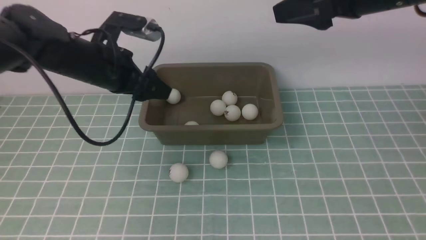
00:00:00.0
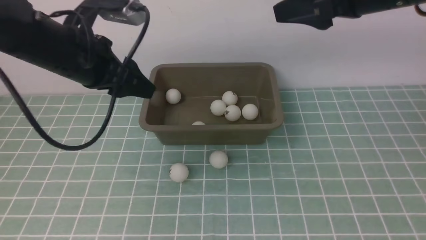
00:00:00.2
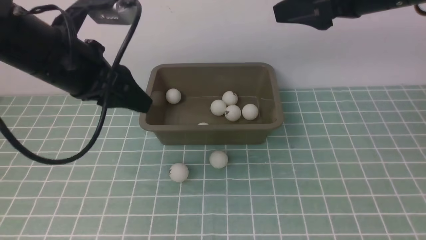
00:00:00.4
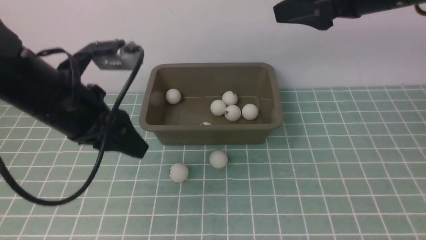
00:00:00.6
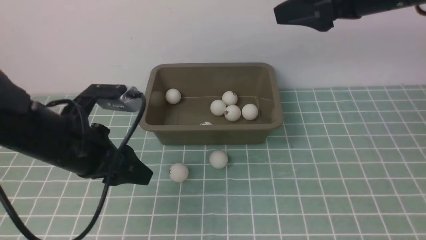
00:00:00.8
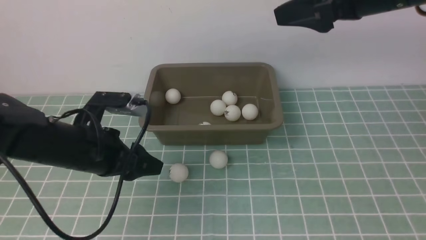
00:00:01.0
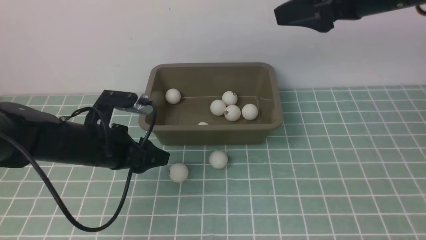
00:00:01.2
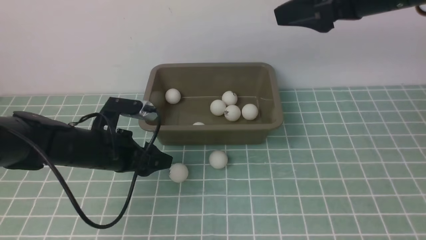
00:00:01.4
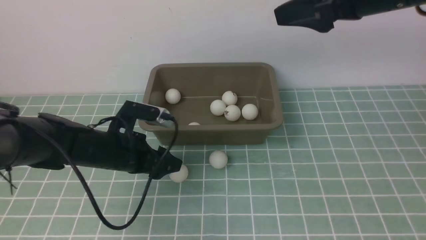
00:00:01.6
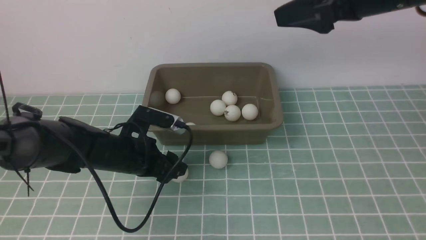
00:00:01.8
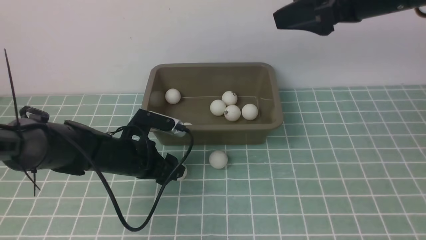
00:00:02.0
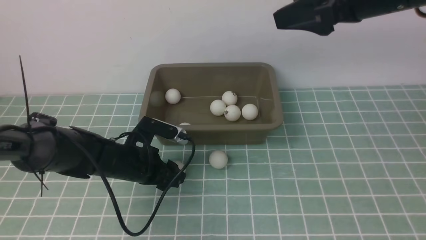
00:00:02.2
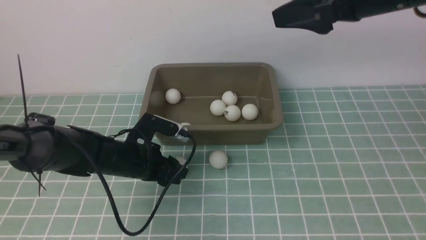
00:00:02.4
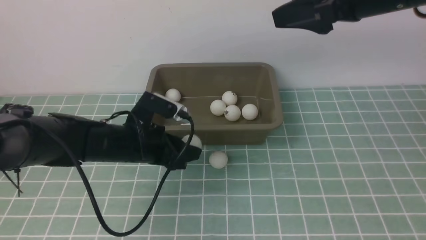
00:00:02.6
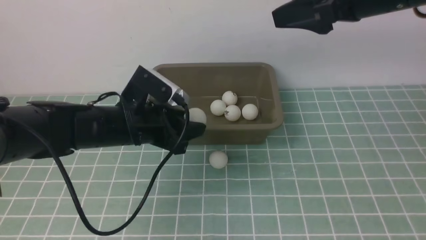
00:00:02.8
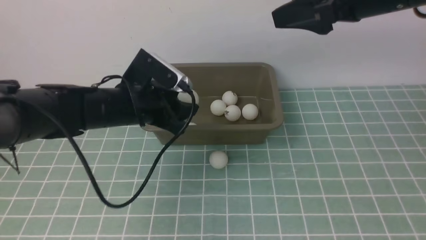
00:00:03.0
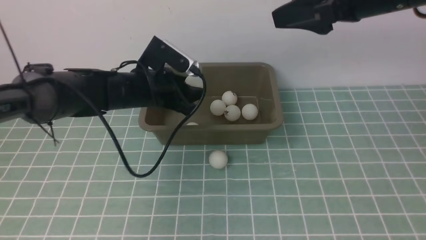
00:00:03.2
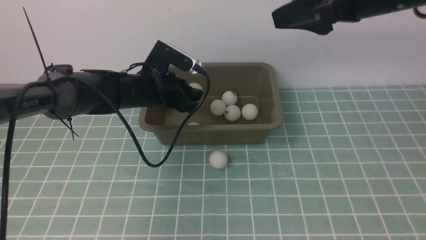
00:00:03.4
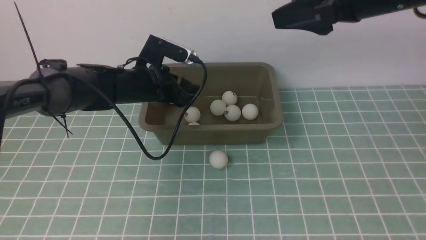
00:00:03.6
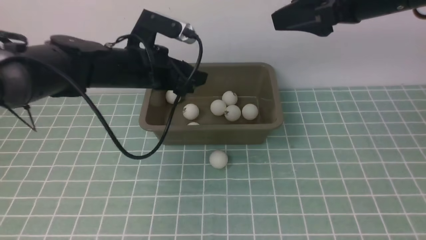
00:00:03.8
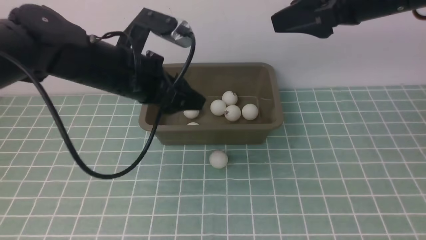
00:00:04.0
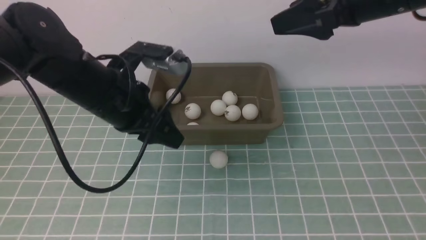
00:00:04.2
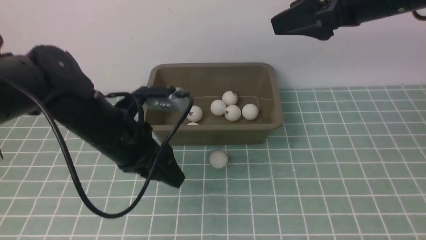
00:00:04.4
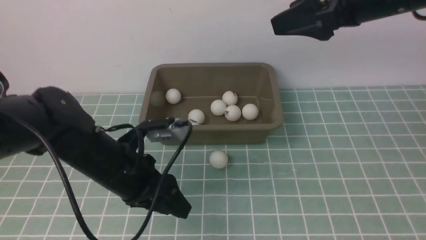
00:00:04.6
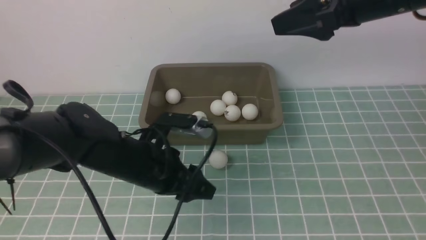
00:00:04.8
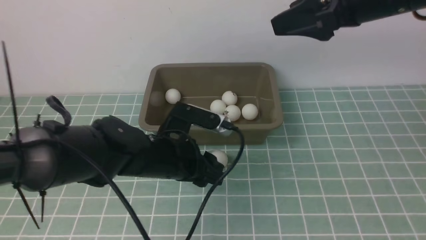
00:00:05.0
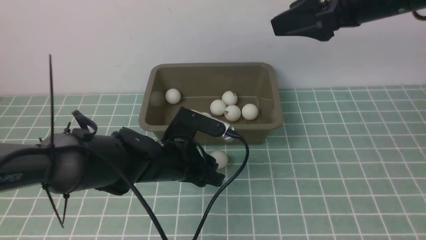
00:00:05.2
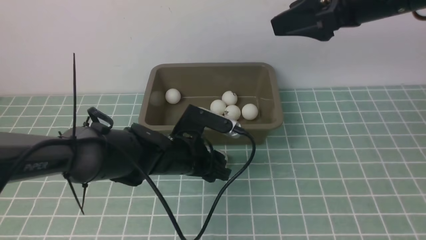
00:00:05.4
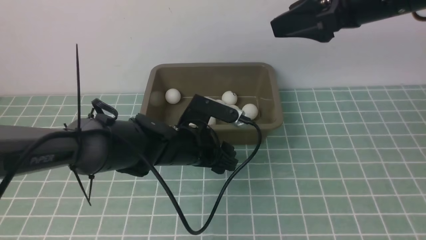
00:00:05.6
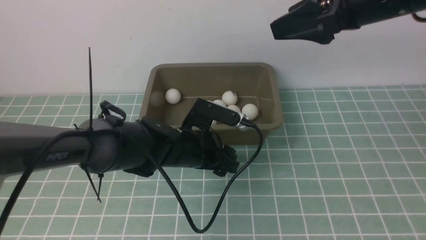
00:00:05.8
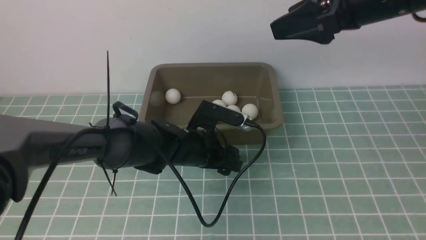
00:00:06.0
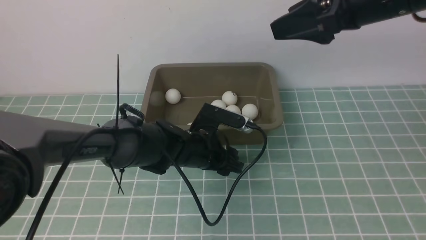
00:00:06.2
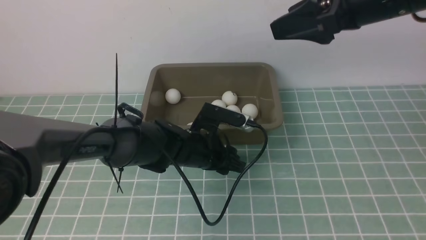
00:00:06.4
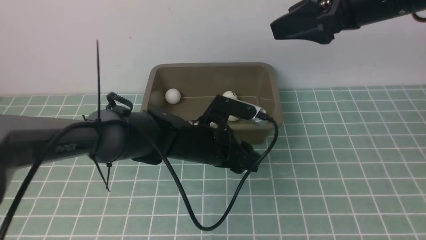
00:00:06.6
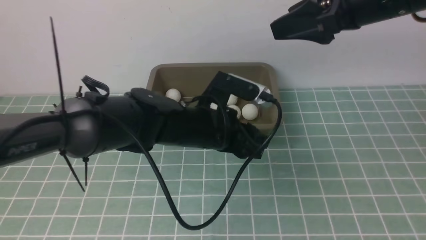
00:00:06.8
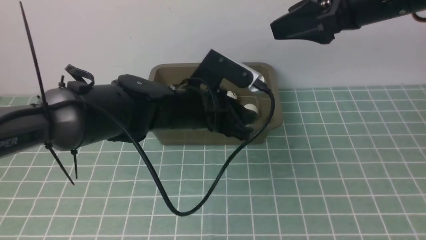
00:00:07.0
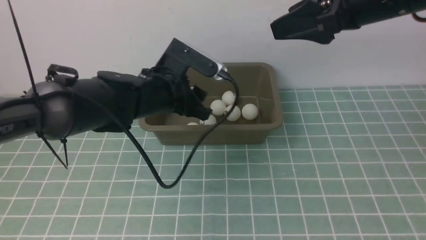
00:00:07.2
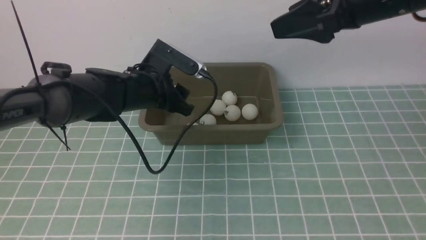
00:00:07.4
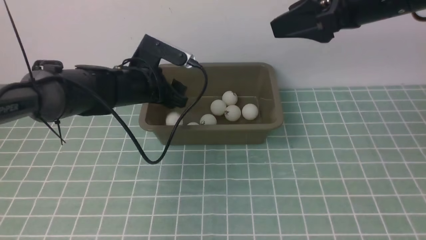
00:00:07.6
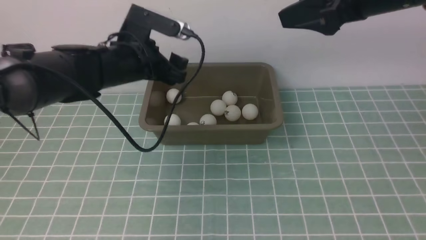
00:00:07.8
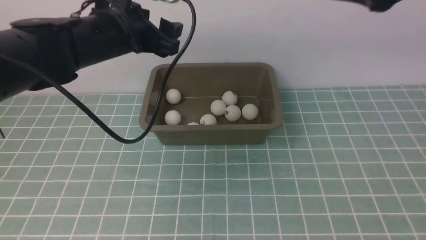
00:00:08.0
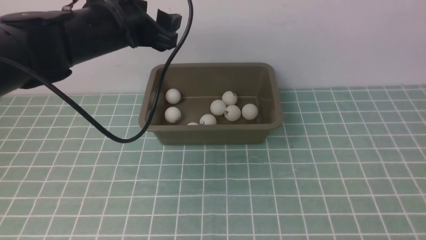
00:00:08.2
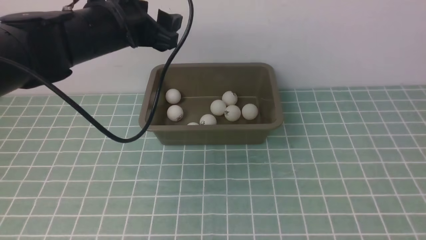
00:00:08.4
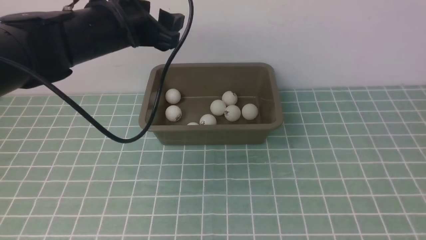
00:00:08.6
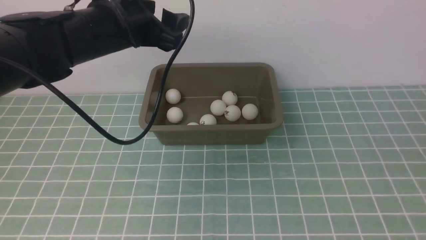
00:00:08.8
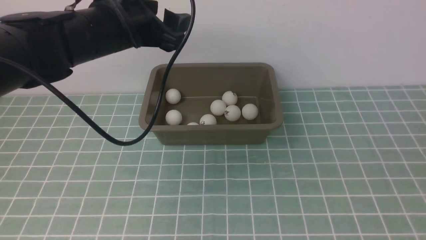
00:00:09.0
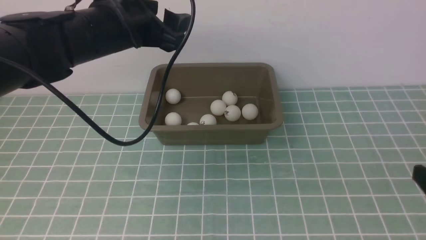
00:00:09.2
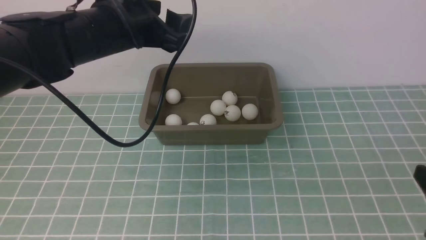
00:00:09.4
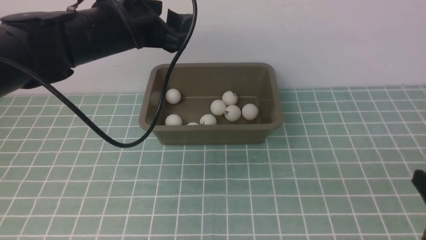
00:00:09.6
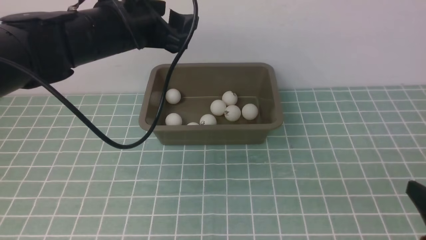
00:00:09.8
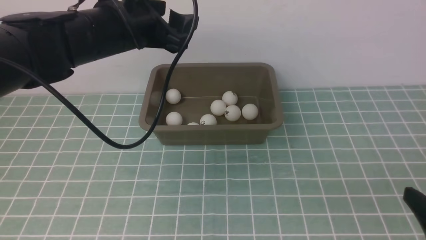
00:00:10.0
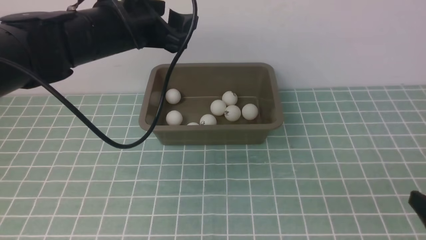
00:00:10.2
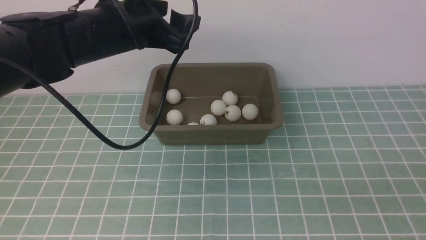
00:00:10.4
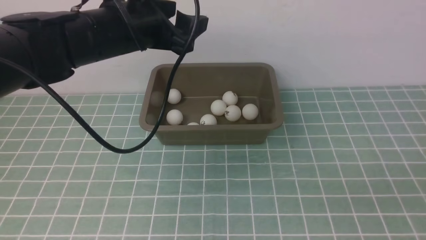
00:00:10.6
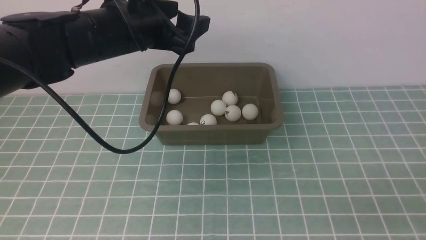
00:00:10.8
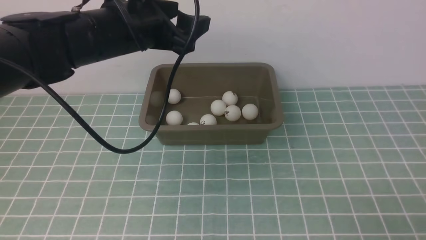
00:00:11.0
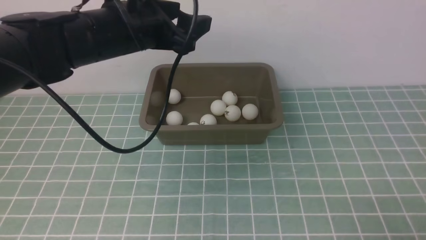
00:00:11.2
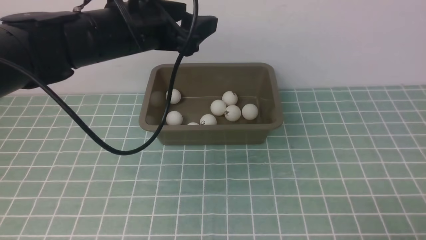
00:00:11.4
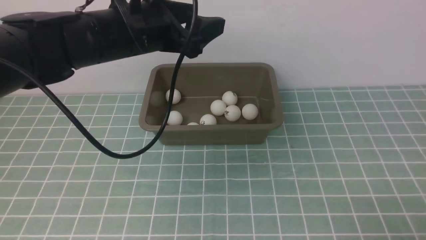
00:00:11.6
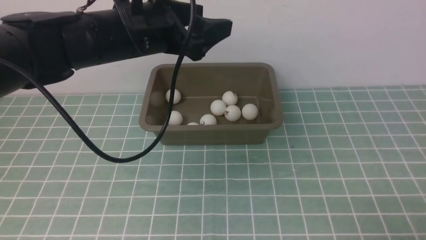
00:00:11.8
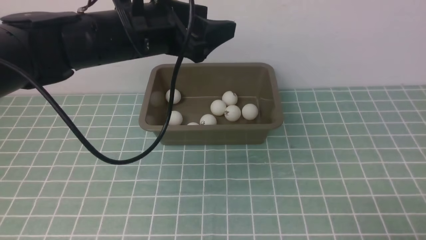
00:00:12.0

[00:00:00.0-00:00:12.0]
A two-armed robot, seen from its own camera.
Step, 00:00:00.0 to 00:00:02.4: use the left arm to clamp the table tennis ball closest to it.
Step, 00:00:02.8 to 00:00:03.6: use the left arm to put the table tennis ball into the box.
Step, 00:00:03.8 to 00:00:06.6: use the left arm to clamp the table tennis ball closest to it.
Step, 00:00:06.8 to 00:00:07.8: use the left arm to put the table tennis ball into the box.
00:00:00.0 to 00:00:01.6: The left gripper is displaced downward by approximately 20 cm.
00:00:01.6 to 00:00:03.0: The left gripper moves upward, roughly 5 cm.
00:00:03.0 to 00:00:04.4: The left gripper travels backward by some 10 cm.
00:00:04.4 to 00:00:06.0: The left gripper travels downward and to the right by roughly 15 cm.
00:00:06.0 to 00:00:07.6: The left gripper moves upward, to the left and forward, about 15 cm.
00:00:07.6 to 00:00:09.0: The right gripper is displaced backward, downward and to the right by some 25 cm. The left gripper travels upward by roughly 10 cm.
00:00:09.0 to 00:00:10.4: The right gripper heads downward, covering roughly 5 cm, and closes up.
00:00:10.4 to 00:00:12.0: The right gripper shifts about 5 cm downward.

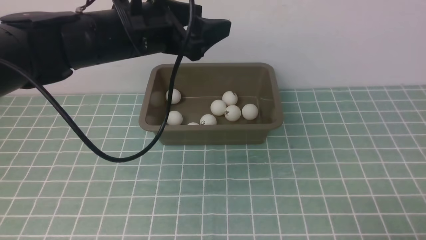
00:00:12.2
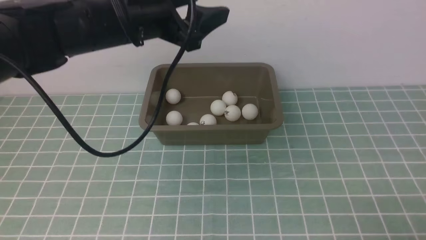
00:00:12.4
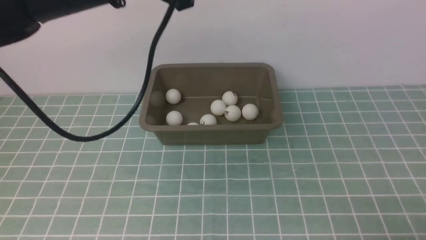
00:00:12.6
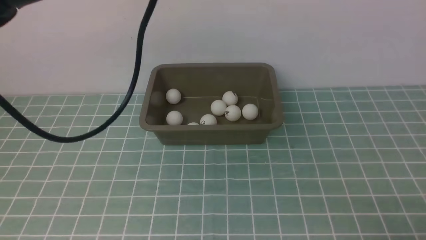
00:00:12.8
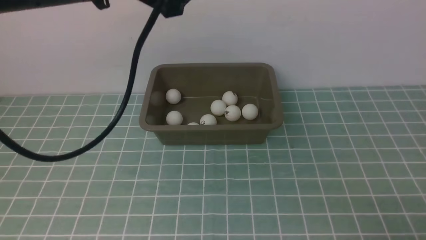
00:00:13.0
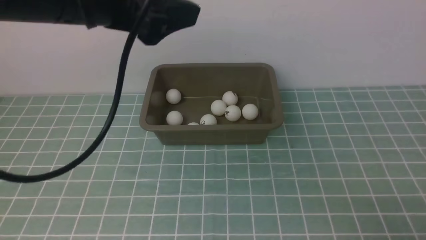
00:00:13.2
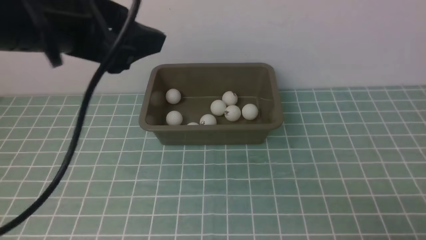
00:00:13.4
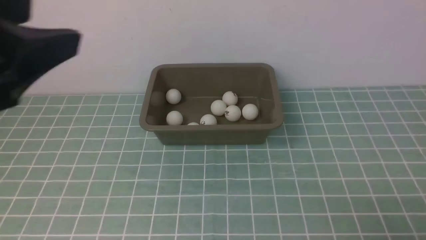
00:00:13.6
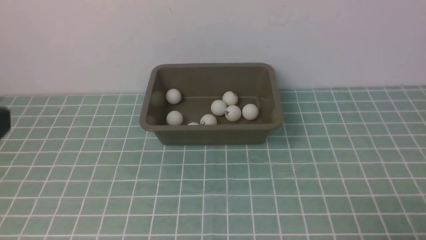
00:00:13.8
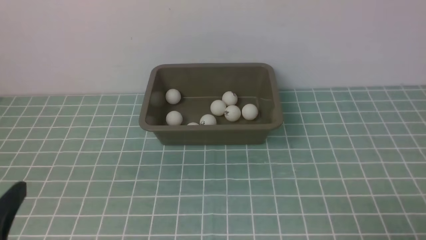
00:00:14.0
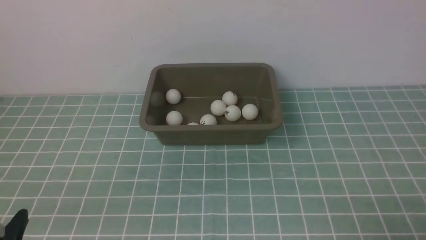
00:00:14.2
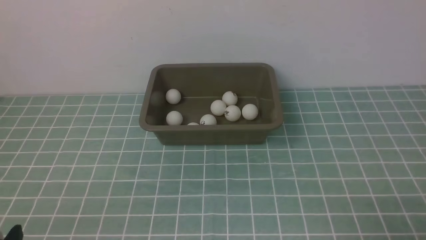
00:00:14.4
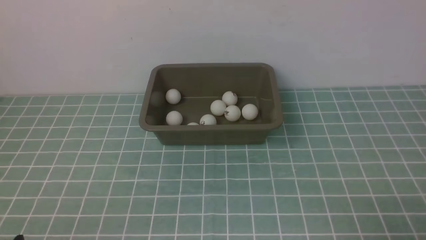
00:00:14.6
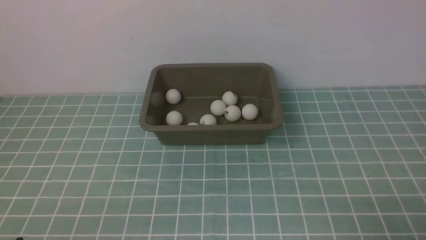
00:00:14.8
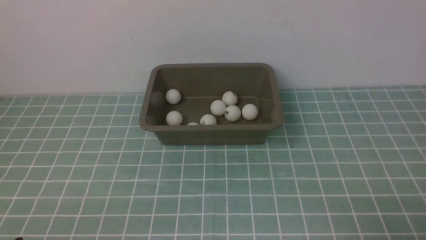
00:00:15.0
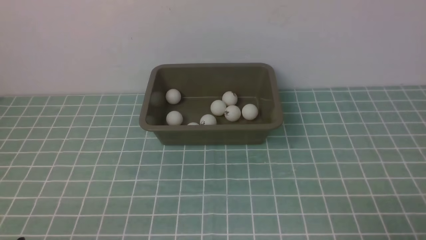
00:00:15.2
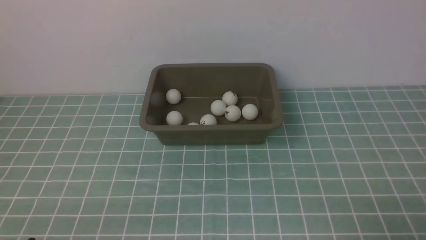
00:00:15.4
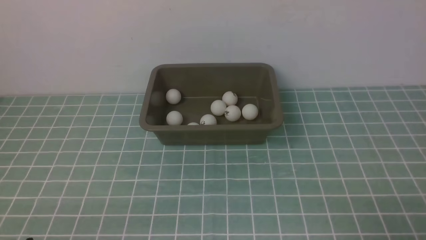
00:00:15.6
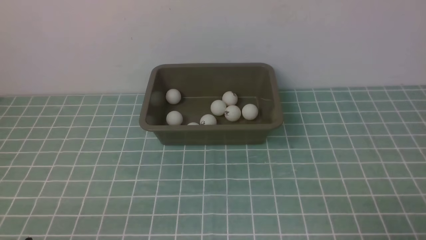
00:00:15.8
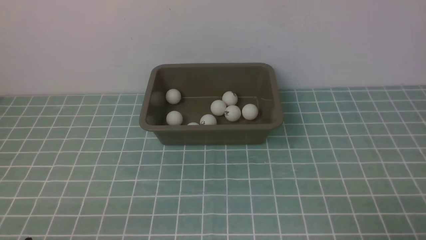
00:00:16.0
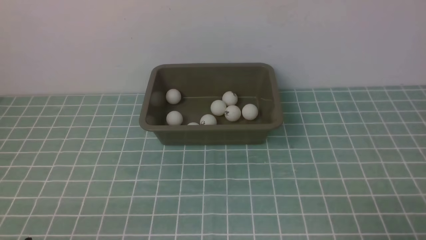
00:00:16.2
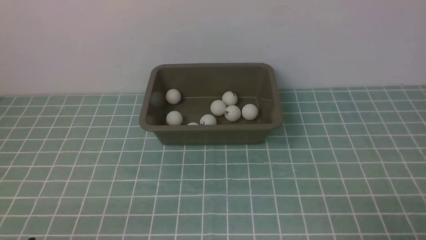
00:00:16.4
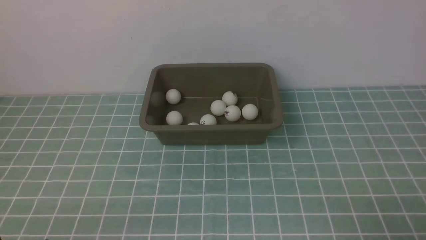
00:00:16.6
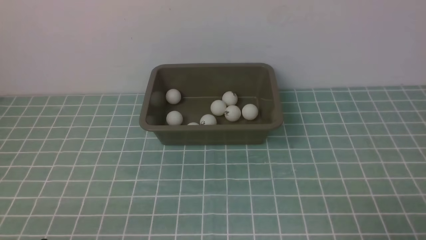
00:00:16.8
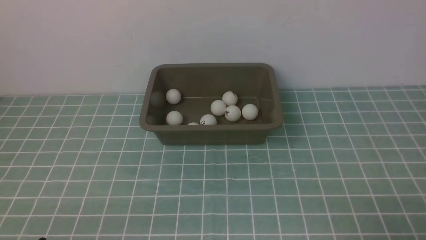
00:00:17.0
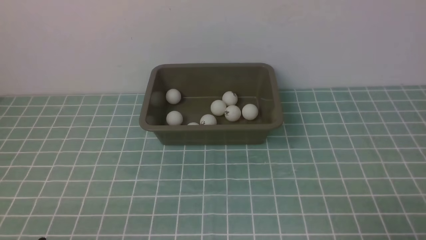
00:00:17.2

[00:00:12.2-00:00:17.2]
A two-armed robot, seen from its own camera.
00:00:12.2 to 00:00:13.8: The left gripper shifts approximately 30 cm backward and to the left.
00:00:13.8 to 00:00:15.6: The left gripper shifts roughly 25 cm downward.
